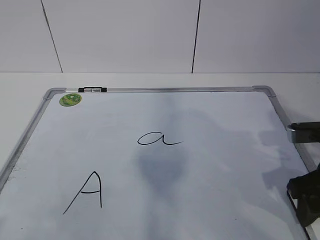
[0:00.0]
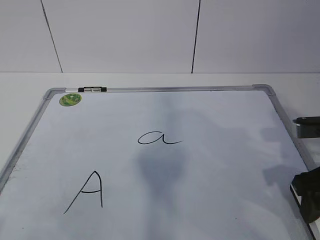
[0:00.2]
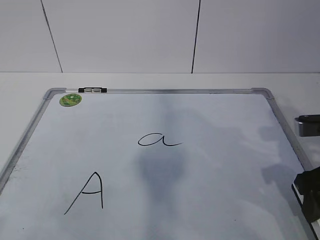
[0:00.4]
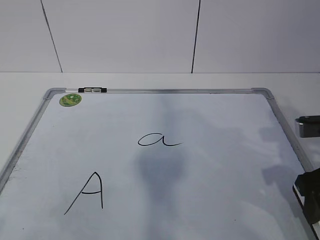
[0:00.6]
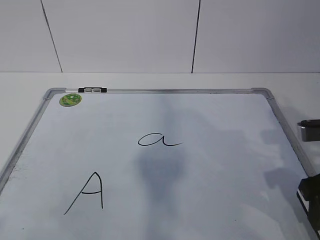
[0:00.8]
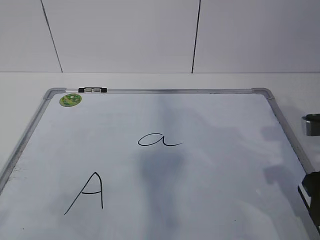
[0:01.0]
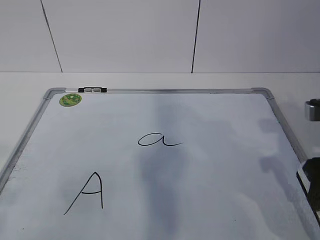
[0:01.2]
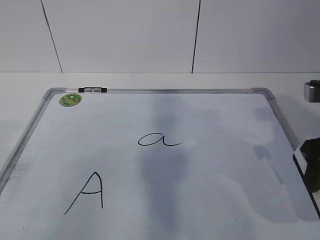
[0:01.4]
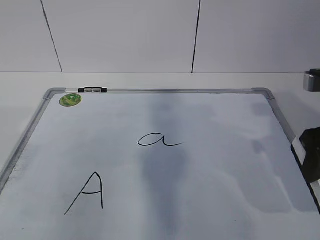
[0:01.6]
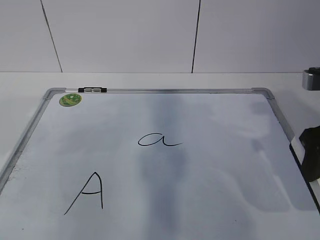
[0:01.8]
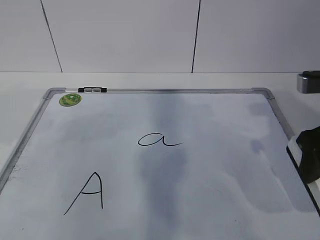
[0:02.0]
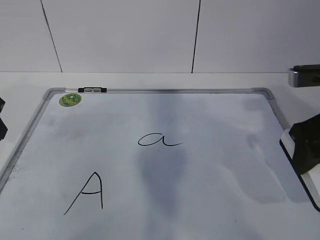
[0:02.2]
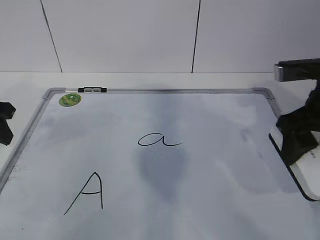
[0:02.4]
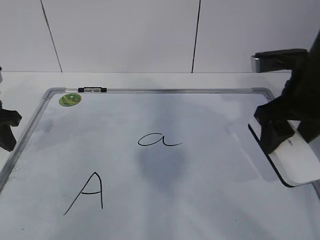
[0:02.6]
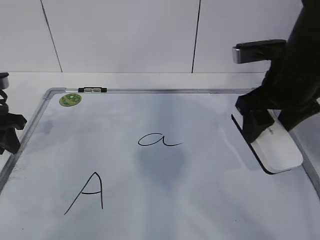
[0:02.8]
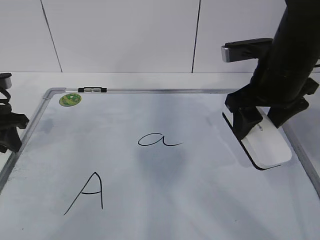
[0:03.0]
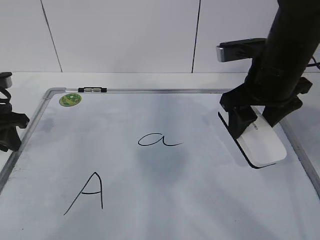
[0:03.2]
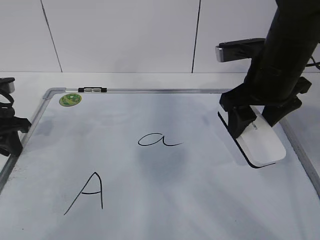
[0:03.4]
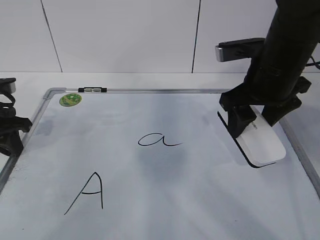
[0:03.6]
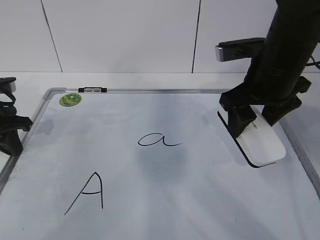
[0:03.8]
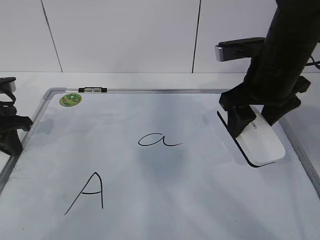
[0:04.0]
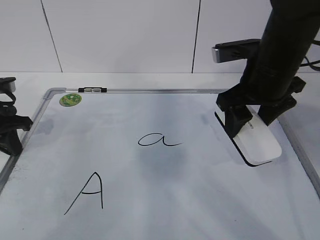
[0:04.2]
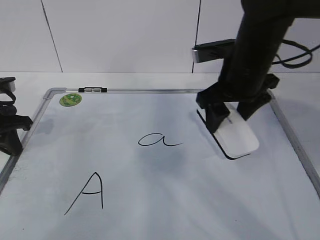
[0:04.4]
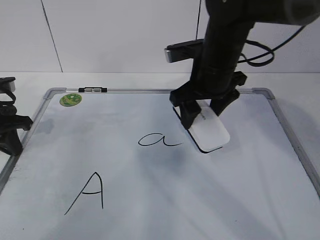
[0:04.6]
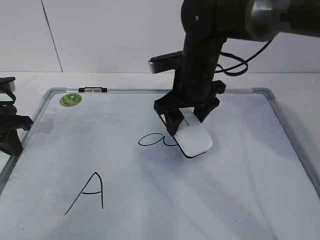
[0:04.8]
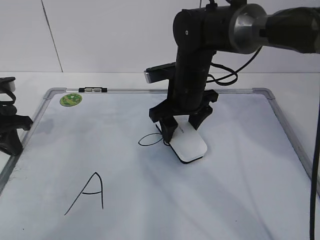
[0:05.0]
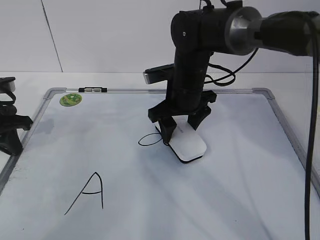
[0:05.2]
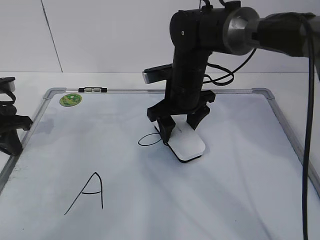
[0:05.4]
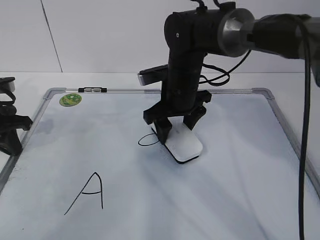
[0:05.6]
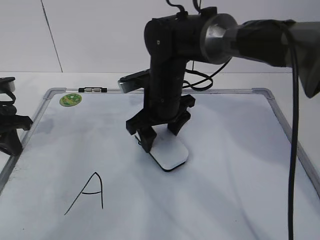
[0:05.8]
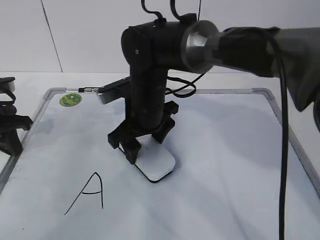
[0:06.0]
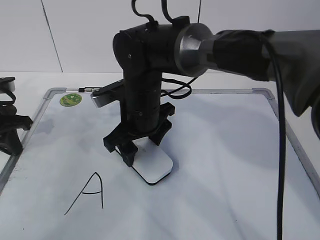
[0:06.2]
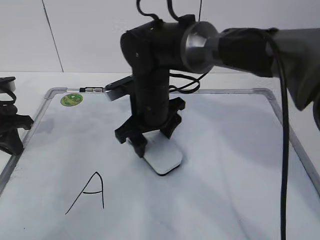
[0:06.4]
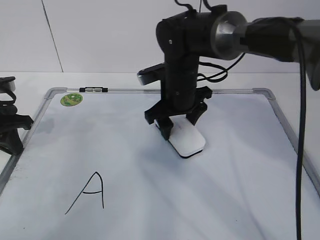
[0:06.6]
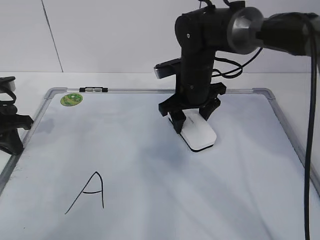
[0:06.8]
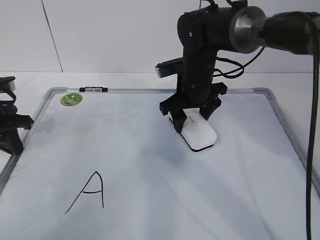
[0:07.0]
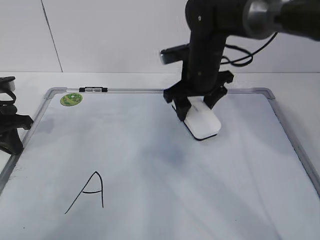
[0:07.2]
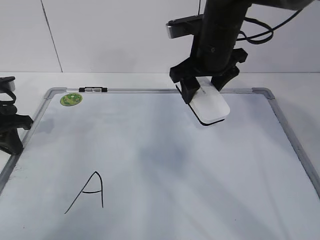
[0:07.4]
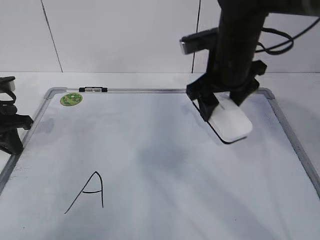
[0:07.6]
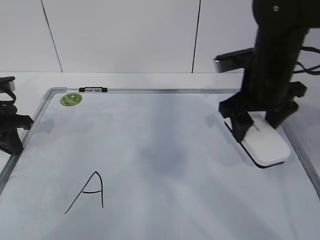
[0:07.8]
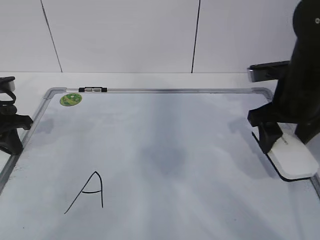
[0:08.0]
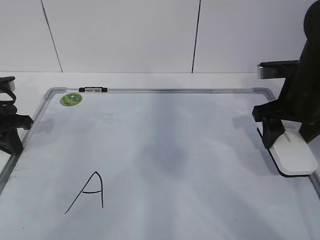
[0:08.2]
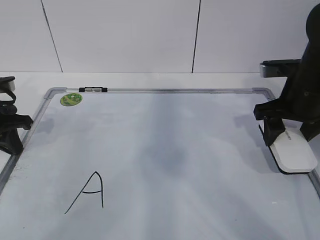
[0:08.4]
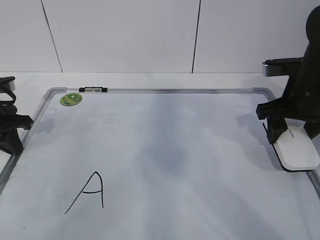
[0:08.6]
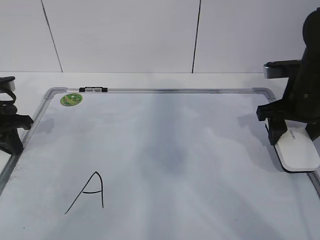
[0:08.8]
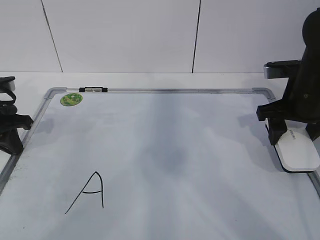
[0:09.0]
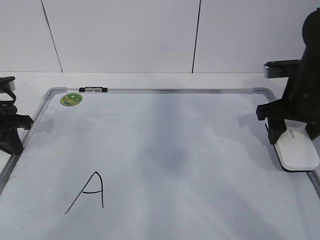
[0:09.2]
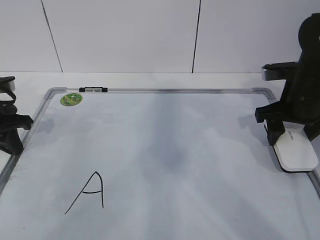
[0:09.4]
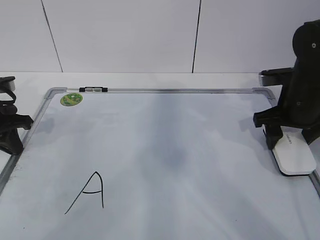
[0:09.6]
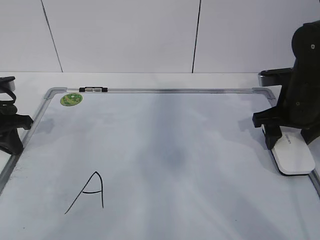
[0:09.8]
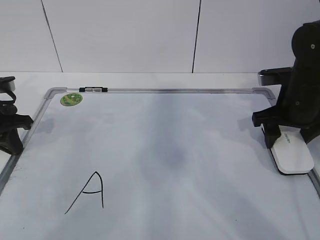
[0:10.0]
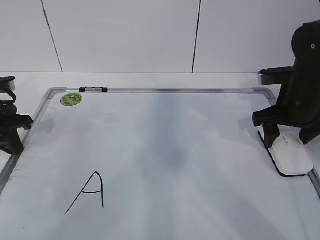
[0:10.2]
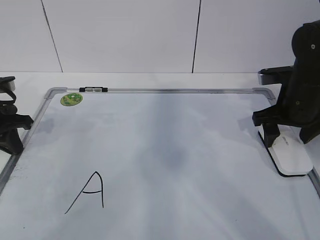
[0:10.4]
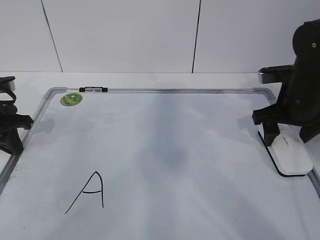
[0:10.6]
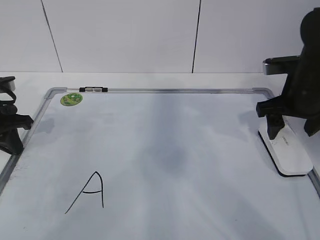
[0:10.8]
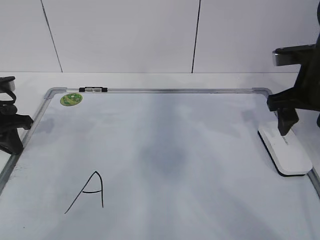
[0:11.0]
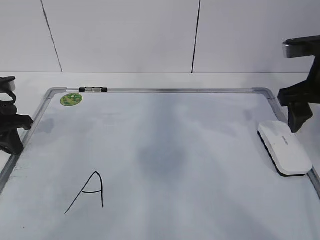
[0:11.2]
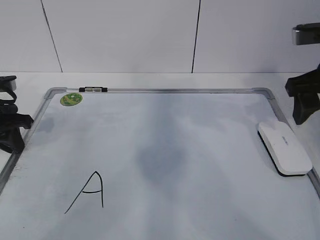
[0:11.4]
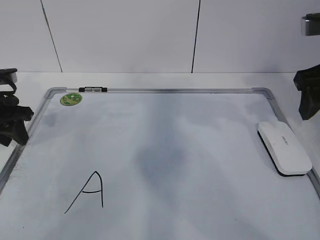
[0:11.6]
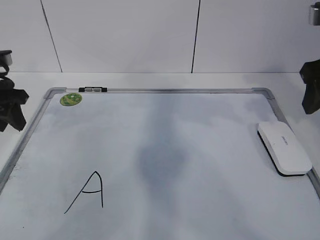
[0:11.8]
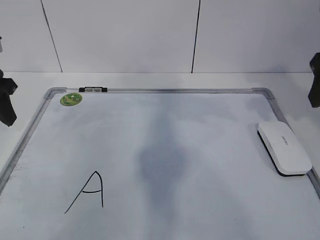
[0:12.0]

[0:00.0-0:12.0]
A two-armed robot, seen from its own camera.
Task of the whole recording: pick up the eraser on the blackboard and erase the letter "a".
Step, 1.6 to 3.8 s: Erase the letter a with your right hand.
Step, 4.2 to 6.4 s: Put down the eraser with your right hand.
0.0 to 1.6 s: The right gripper shifts about 10 cm upward. The left gripper shifts about 15 cm forward.
1.6 to 3.0 s: The left gripper goes roughly 20 cm forward and downward, and closes its fingers, while the right gripper moves forward and to the left, about 10 cm.
3.0 to 4.4 s: The left gripper closes; the right gripper moves roughly 5 cm.
4.4 to 6.0 s: The right gripper goes roughly 15 cm to the left and downward.
6.0 to 7.6 s: The right gripper travels to the right and upward by about 15 cm.
7.6 to 9.0 s: The right gripper travels to the right by approximately 10 cm.
9.0 to 10.4 s: The right gripper opens.
10.4 to 12.0 s: The left gripper is displaced upward by about 10 cm, and opens its fingers, while the right gripper heads upward and backward, covering about 15 cm.

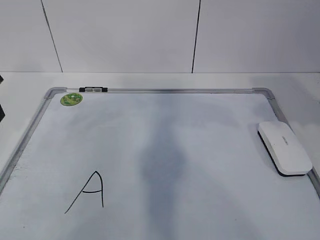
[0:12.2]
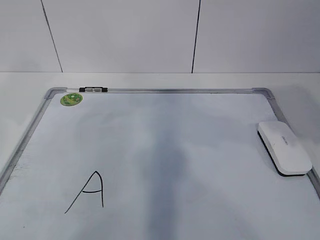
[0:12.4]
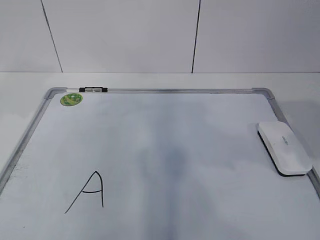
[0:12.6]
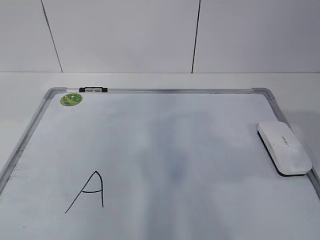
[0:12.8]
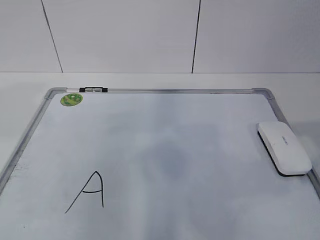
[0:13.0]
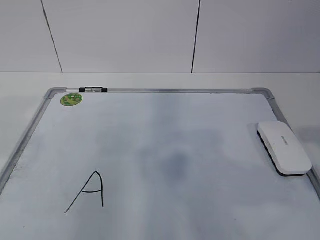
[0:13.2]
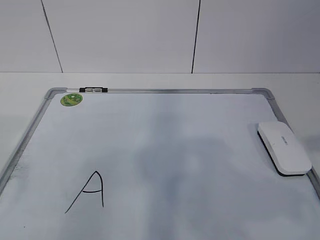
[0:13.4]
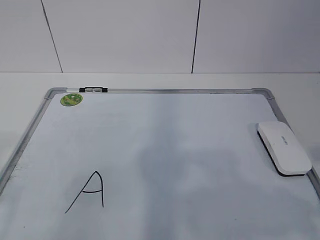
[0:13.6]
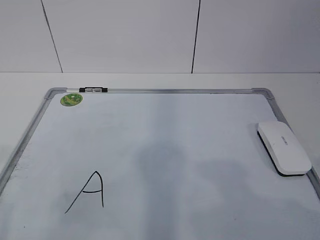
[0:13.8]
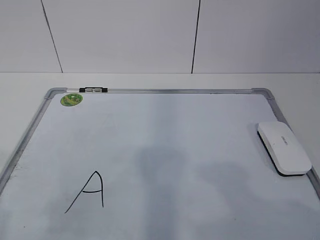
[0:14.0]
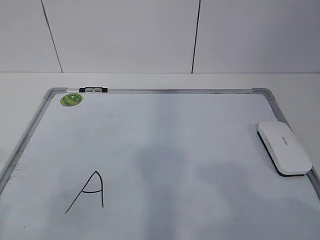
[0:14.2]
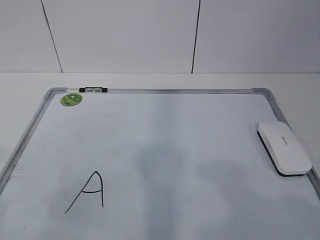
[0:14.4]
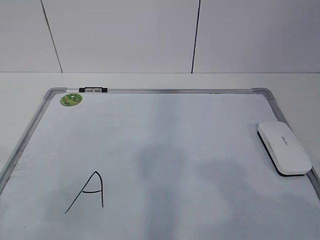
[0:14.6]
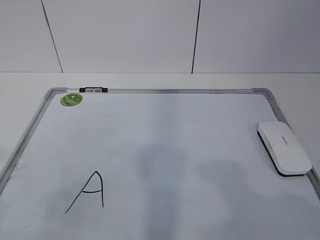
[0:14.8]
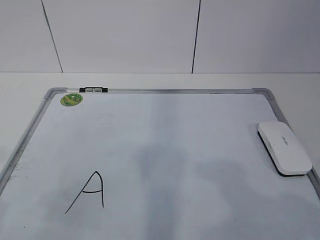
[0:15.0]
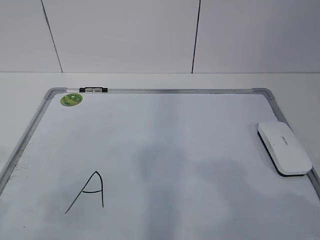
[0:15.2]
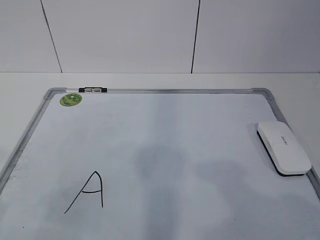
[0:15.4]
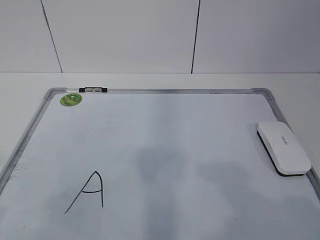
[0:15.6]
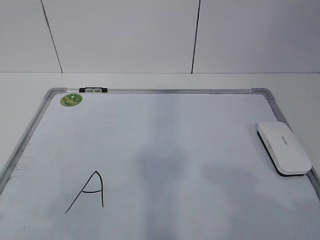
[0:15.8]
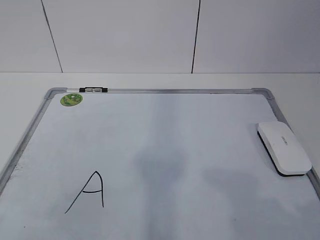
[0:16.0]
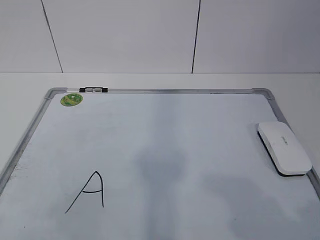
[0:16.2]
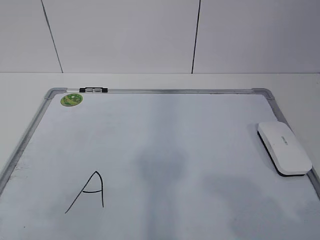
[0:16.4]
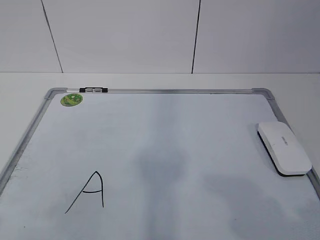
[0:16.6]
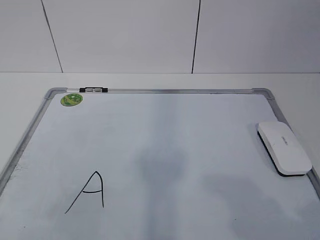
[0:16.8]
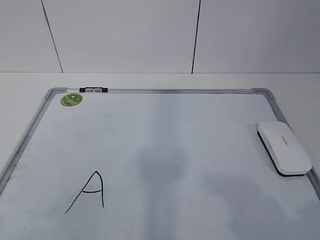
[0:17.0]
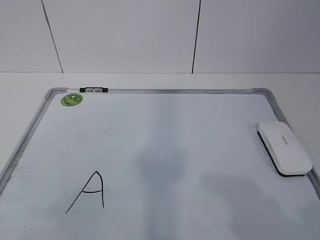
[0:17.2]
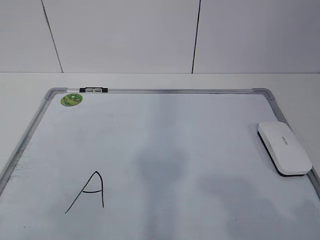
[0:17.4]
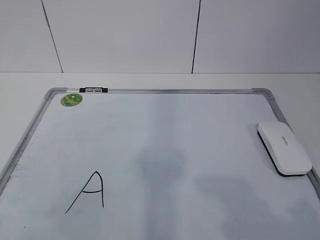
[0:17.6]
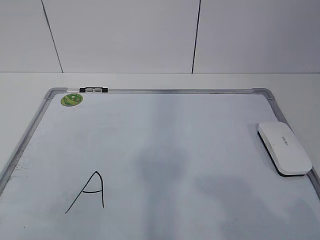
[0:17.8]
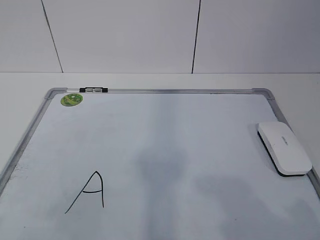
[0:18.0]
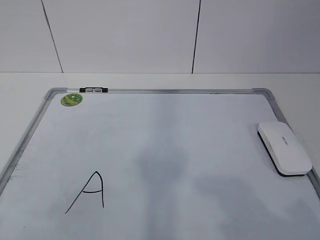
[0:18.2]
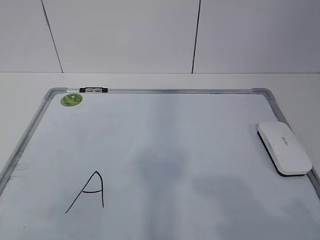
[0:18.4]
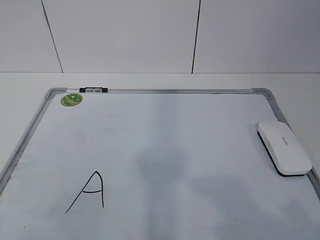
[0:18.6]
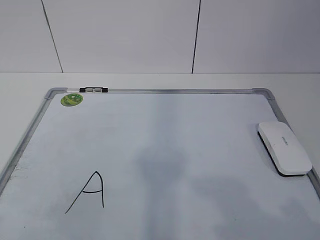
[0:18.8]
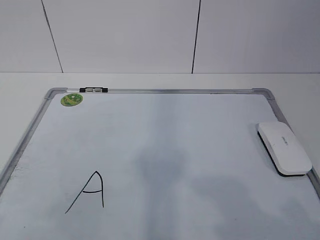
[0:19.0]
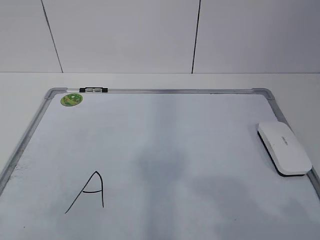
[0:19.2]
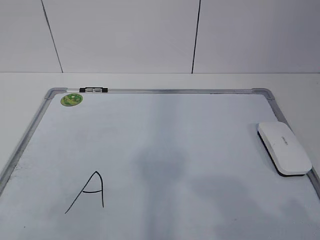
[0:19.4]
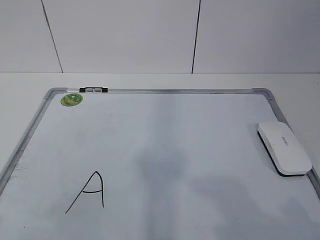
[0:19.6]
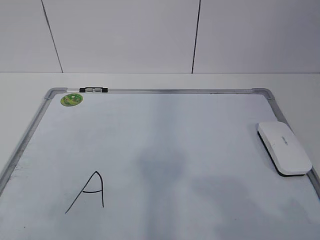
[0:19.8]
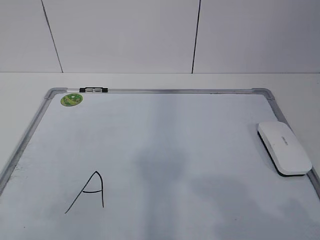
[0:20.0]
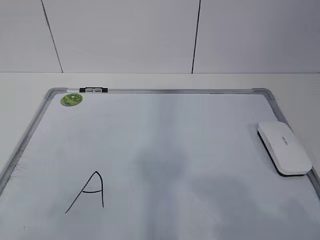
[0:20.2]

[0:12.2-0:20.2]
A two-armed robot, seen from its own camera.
Task of the whole recording: pick up the eraser on the blackboard and erase the letter "a".
12.2 to 13.8 s: The right gripper moves backward, some 20 cm.
18.6 to 20.2 s: The two grippers keep their place.

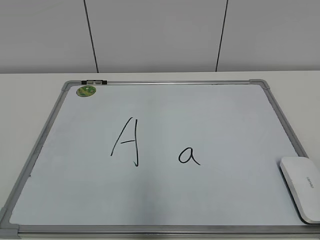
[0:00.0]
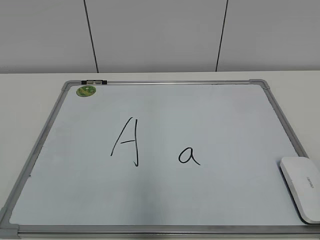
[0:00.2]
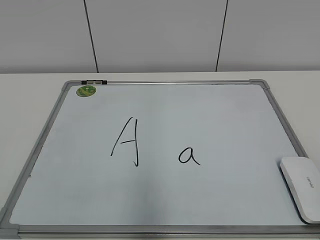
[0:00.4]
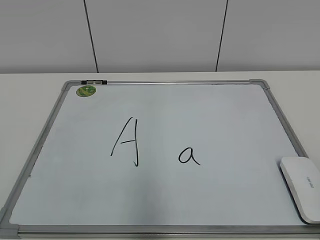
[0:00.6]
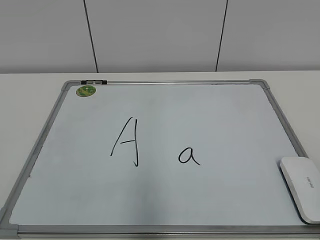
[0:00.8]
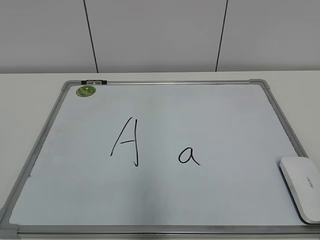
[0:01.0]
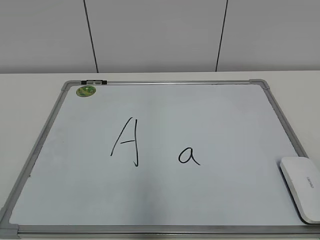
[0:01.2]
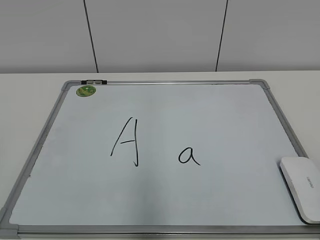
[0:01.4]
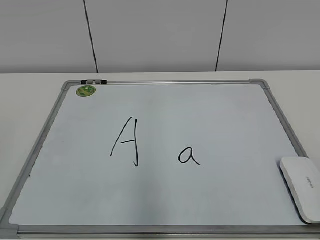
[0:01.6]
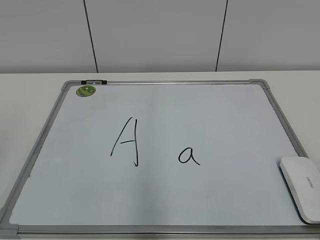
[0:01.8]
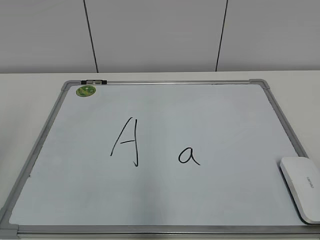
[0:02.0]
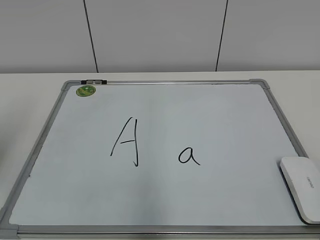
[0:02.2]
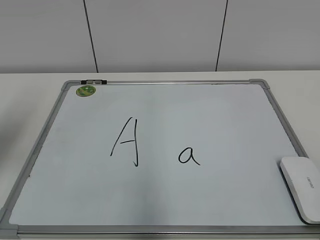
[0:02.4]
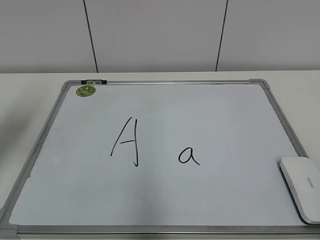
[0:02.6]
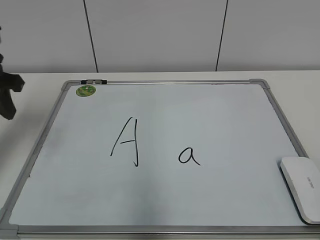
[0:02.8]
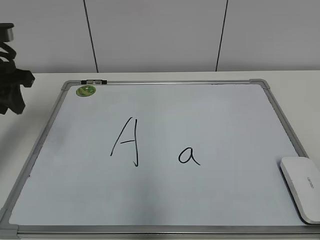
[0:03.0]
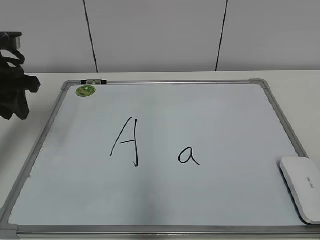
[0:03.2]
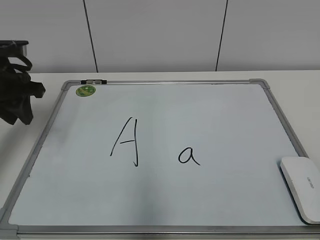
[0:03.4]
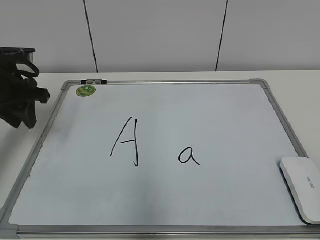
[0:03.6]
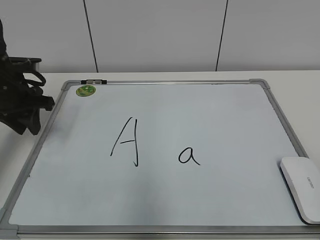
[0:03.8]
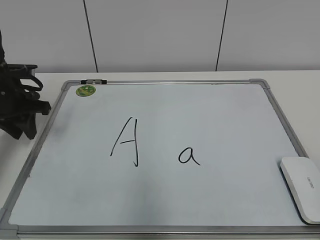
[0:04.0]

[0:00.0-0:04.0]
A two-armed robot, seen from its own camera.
Task of the whole recording: pick up the eraser on the blackboard and erase the letter "a".
1.4 to 2.6 s: The left gripper goes roughly 30 cm forward.
2.6 to 4.0 s: The left gripper travels downward and forward by about 15 cm.
